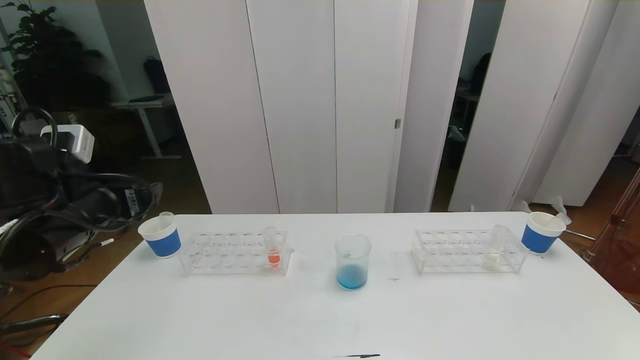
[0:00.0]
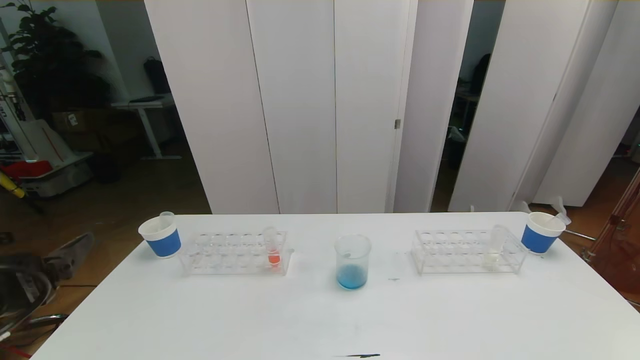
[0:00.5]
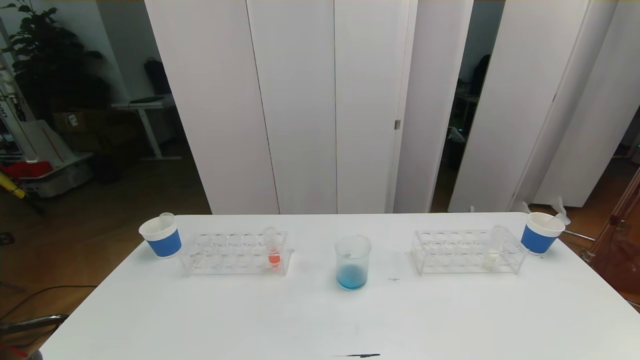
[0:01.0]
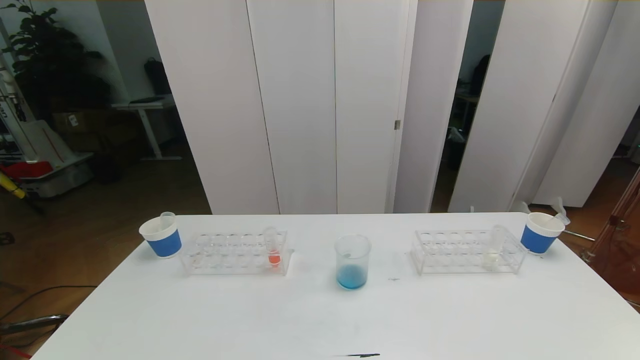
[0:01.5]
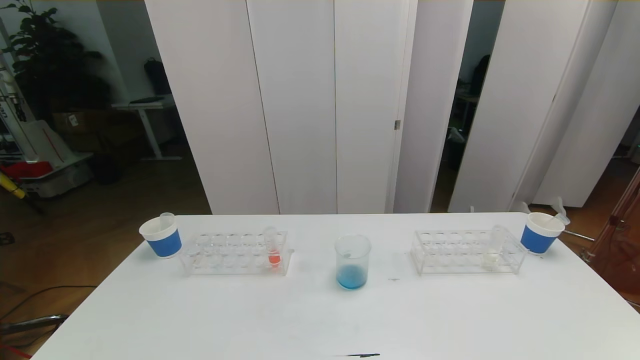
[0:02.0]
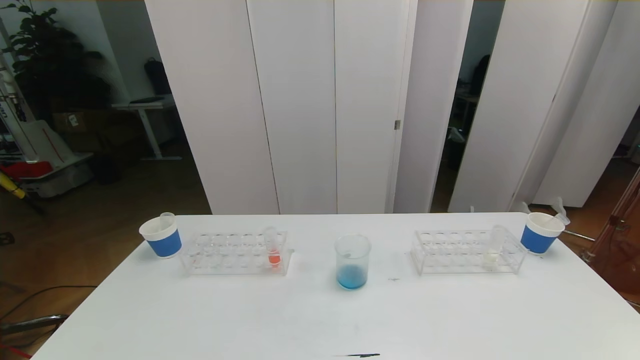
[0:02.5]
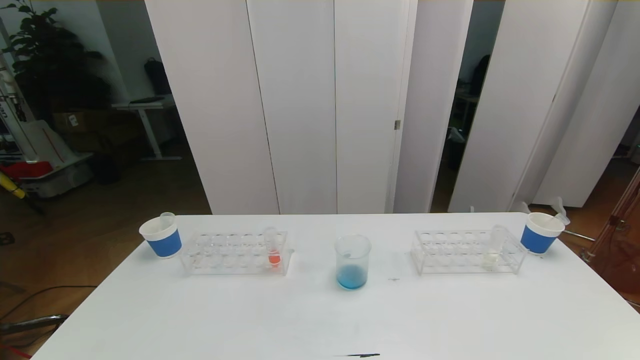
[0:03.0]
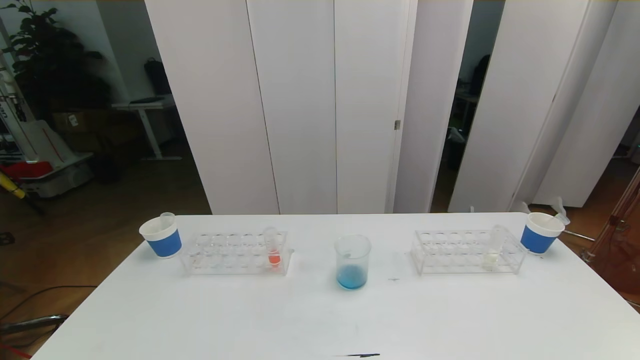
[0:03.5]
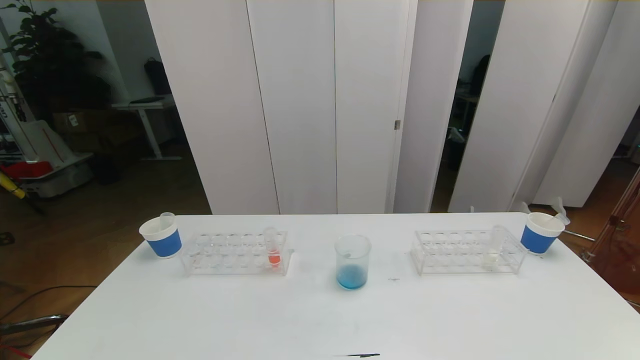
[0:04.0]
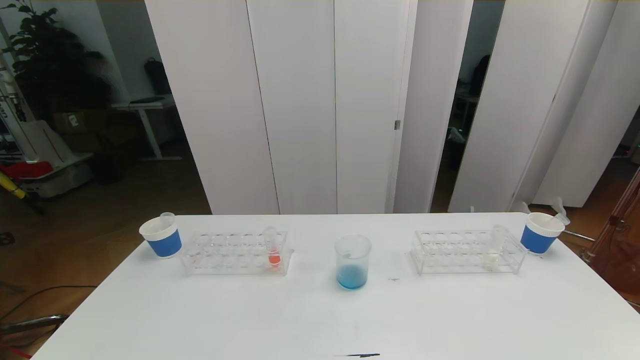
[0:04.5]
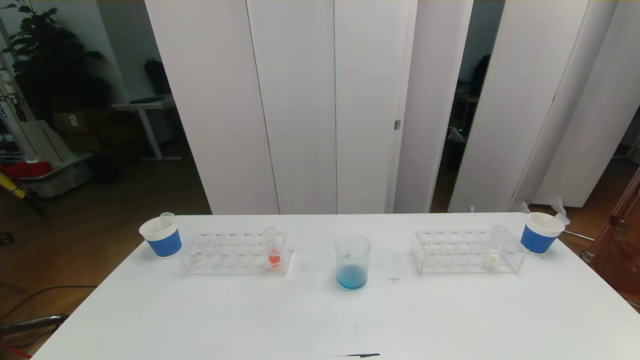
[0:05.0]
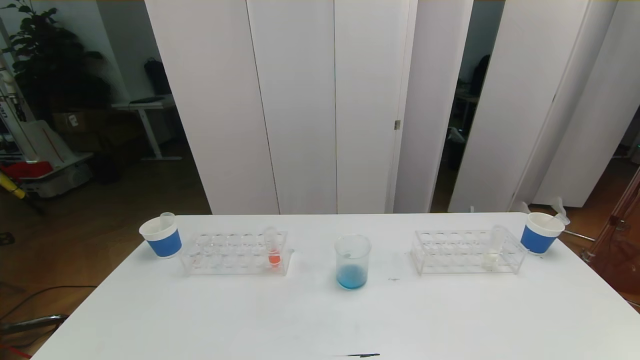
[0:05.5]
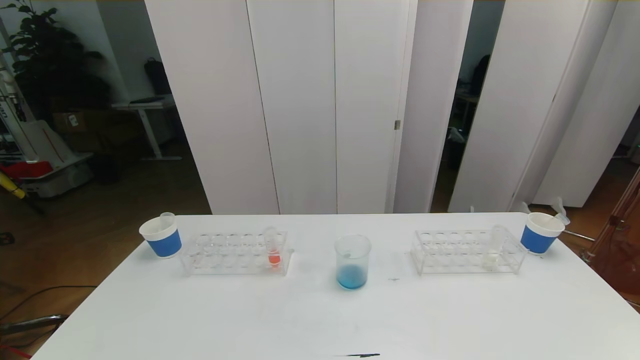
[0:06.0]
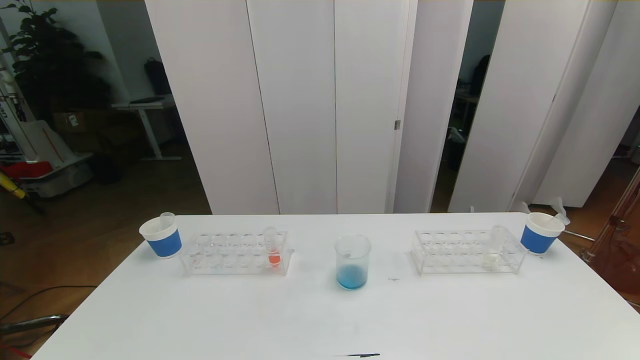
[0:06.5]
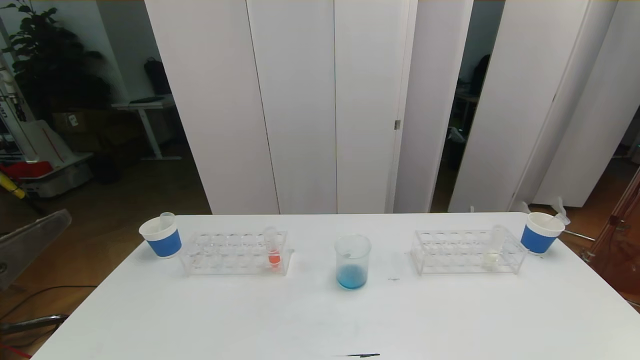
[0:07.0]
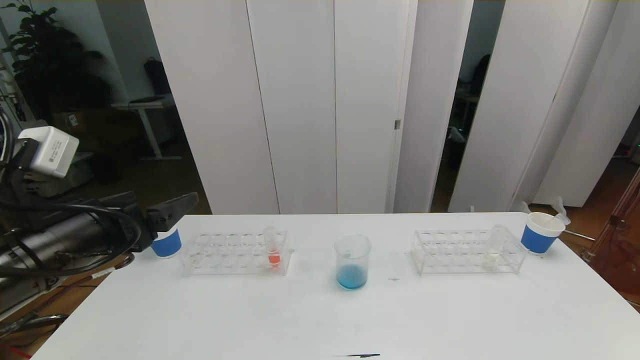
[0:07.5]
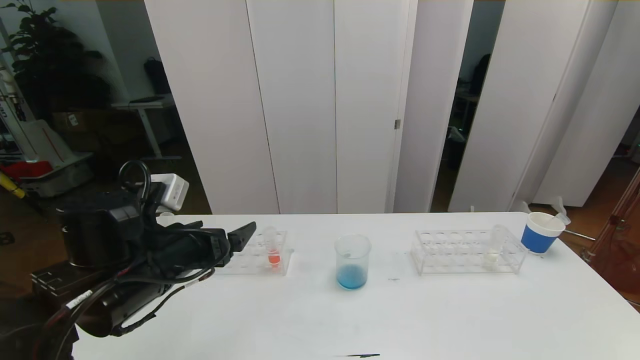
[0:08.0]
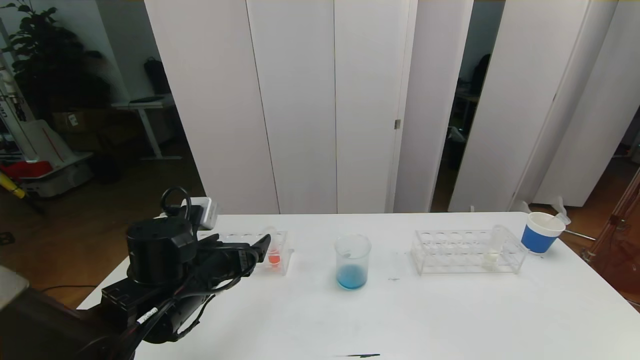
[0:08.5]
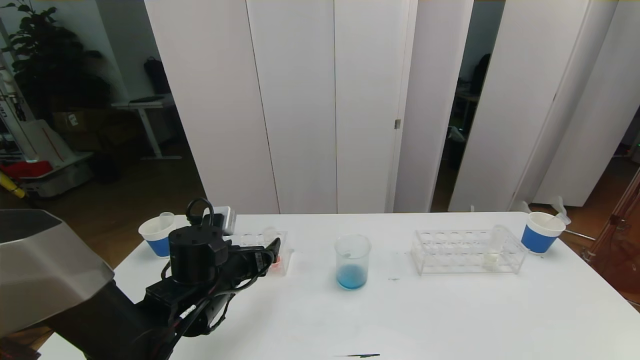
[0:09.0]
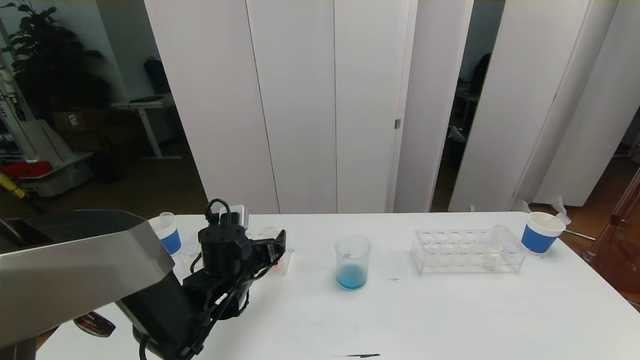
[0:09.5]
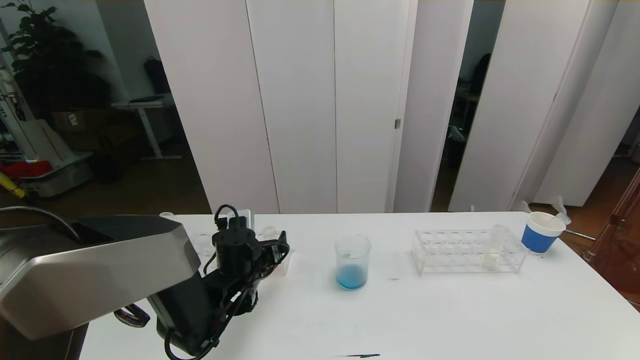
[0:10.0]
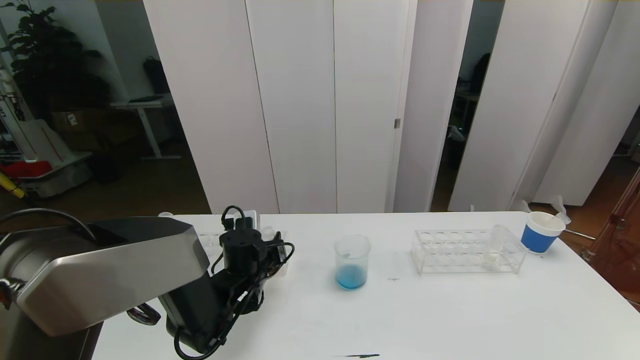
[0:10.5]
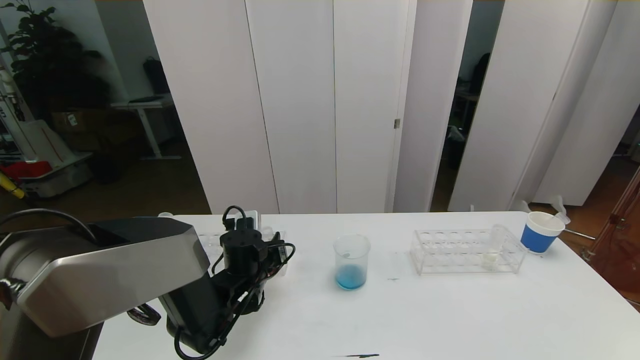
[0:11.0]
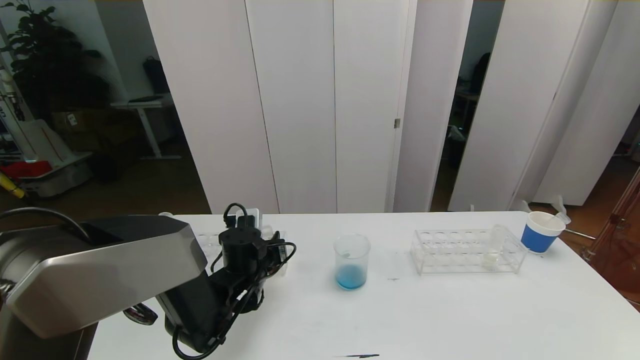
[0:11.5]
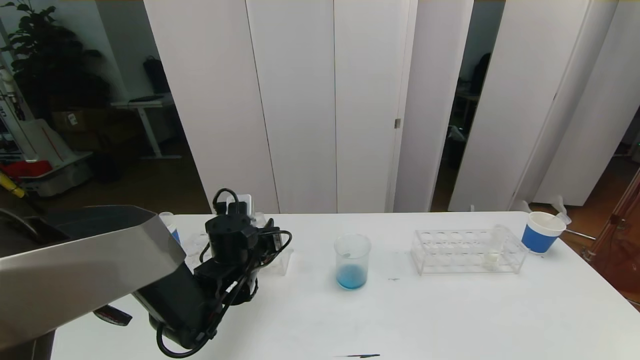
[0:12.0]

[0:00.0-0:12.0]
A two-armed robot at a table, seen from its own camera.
Task of the whole recording: pick up the test tube with red pigment the test tube with blue pigment and the test tube with white pigment by grippers and pour them into the beaker.
Step, 0:00.0 to 0:02.0: Pour the blue reagent into the graduated cylinder and place the test tube into the paper cup.
0:00.0 to 0:02.0: The left gripper goes about 30 cm backward and downward.
0:06.0 to 0:08.0: The left gripper is displaced forward by about 25 cm.
0:08.0 to 0:10.0: The left gripper goes some 15 cm downward and forward.
0:10.0 to 0:12.0: The left gripper closes.

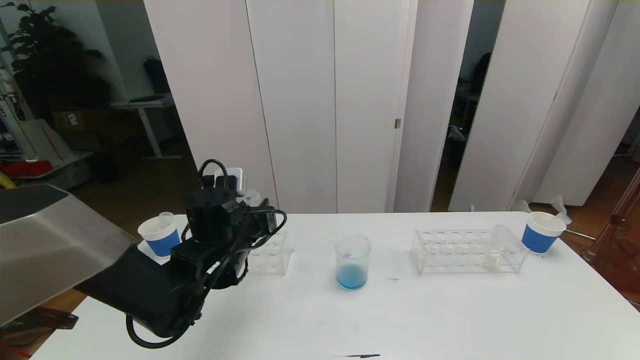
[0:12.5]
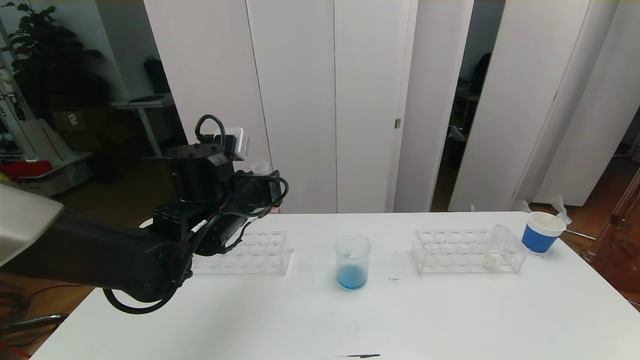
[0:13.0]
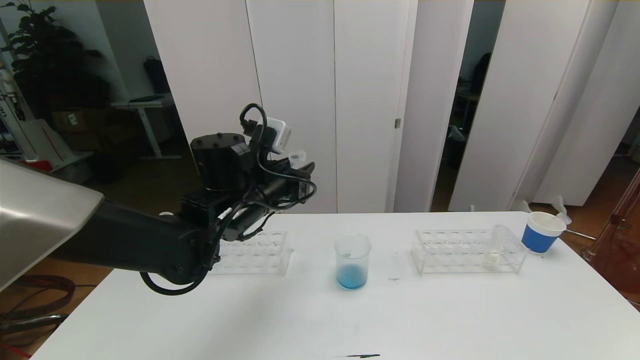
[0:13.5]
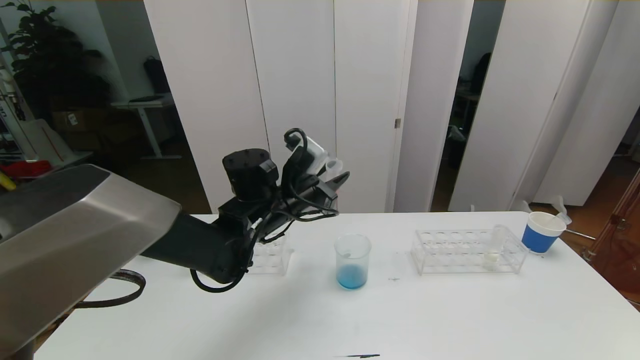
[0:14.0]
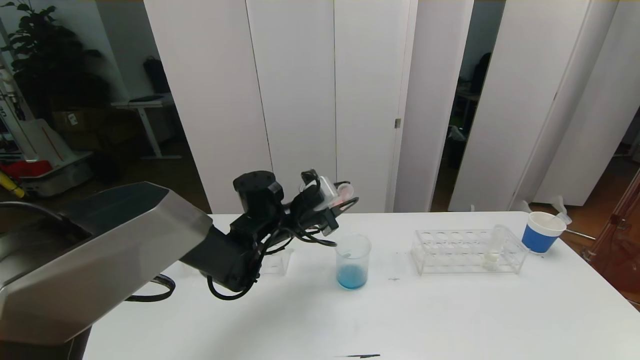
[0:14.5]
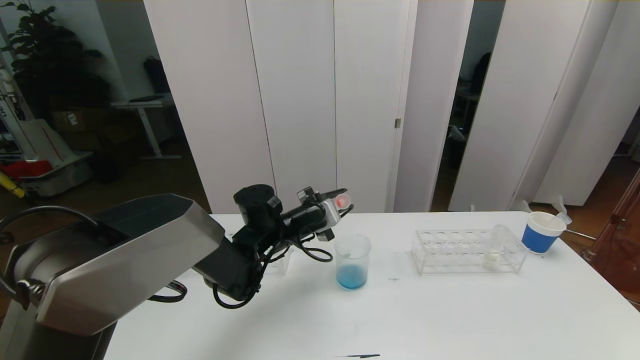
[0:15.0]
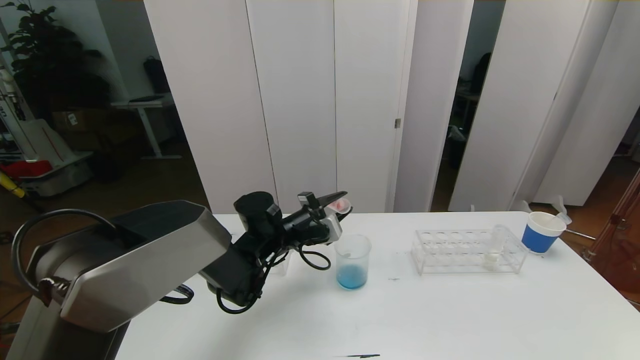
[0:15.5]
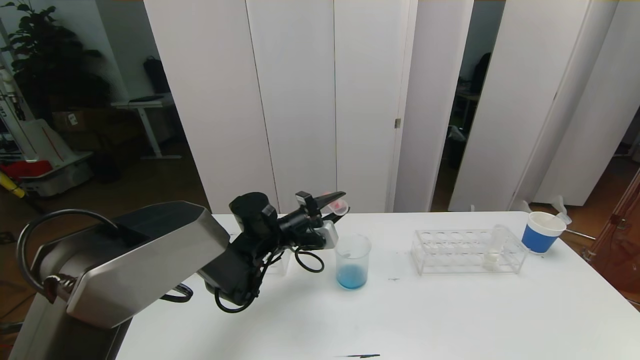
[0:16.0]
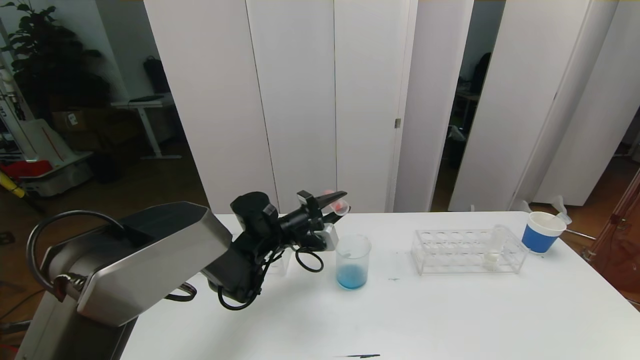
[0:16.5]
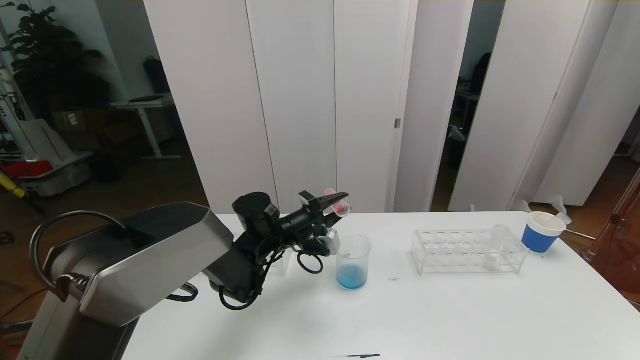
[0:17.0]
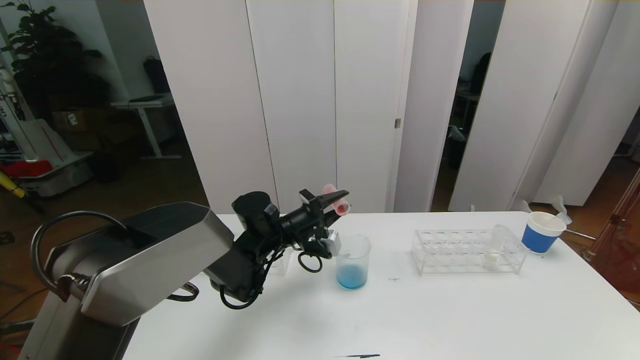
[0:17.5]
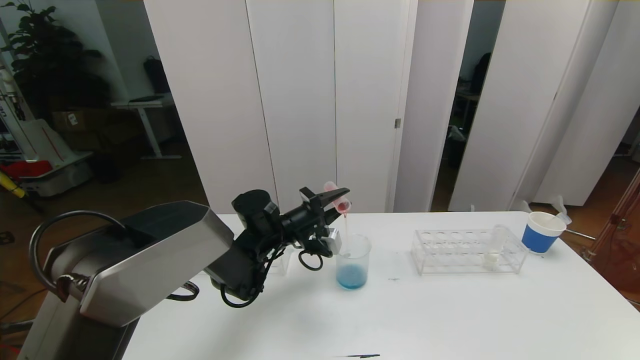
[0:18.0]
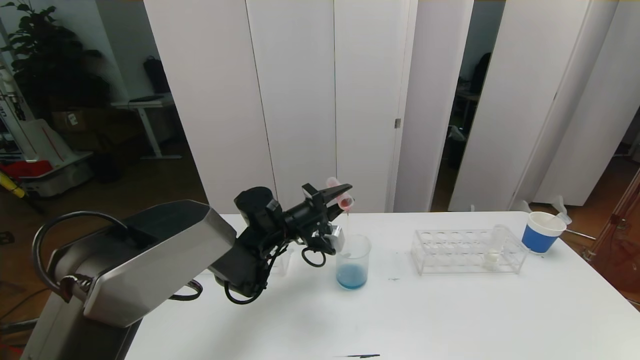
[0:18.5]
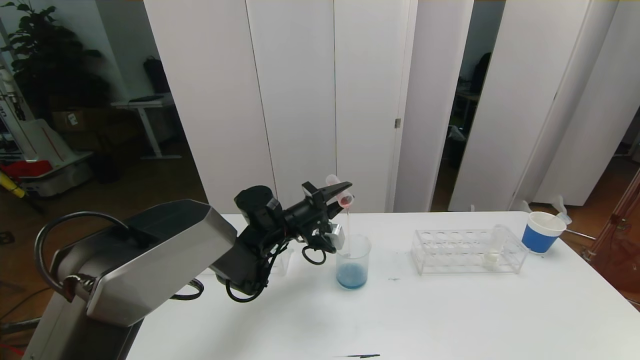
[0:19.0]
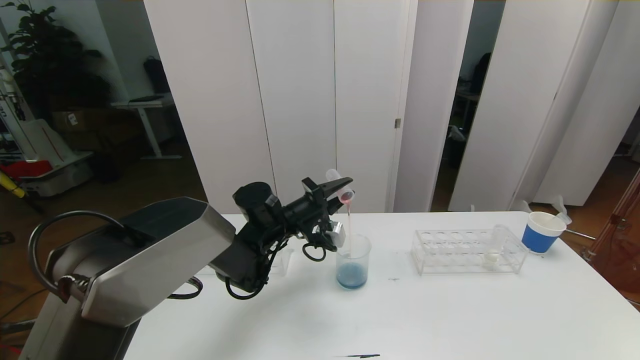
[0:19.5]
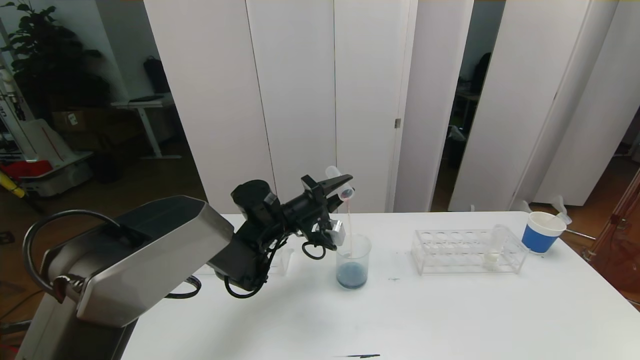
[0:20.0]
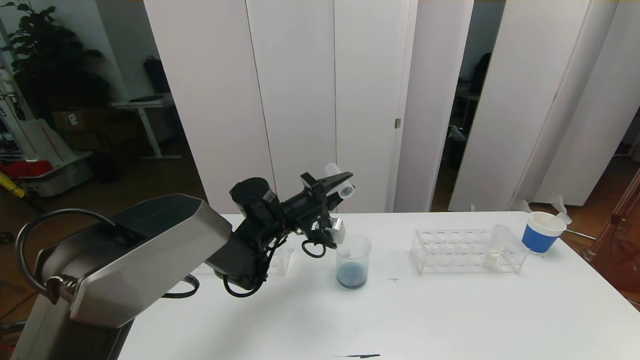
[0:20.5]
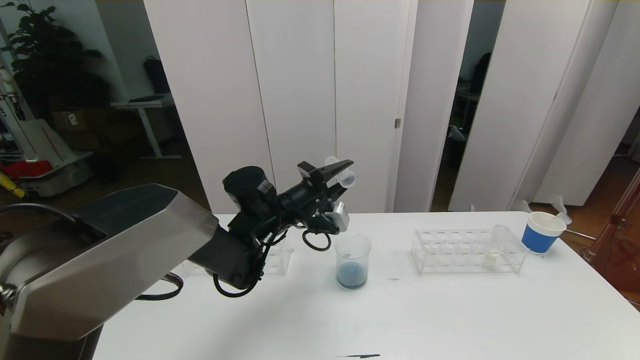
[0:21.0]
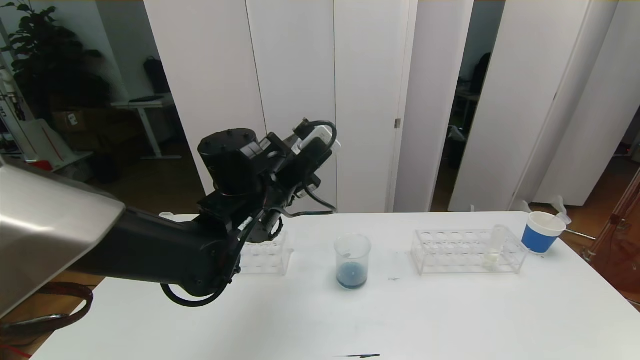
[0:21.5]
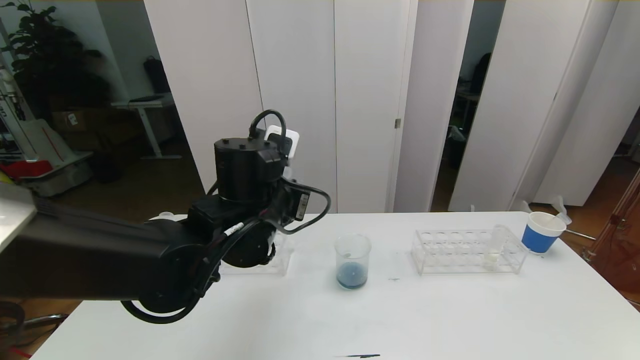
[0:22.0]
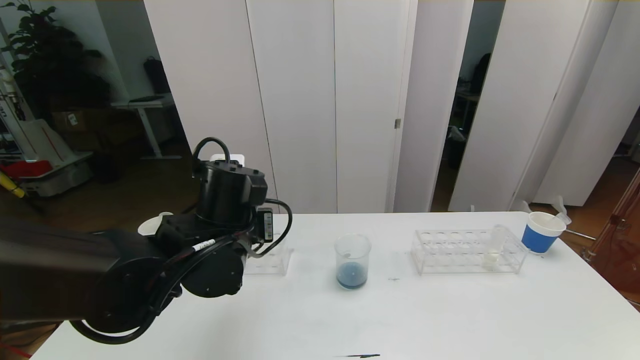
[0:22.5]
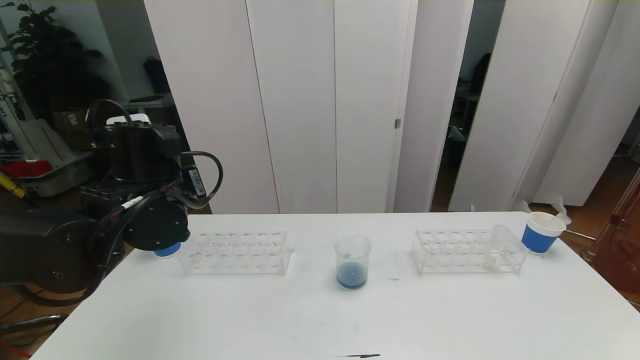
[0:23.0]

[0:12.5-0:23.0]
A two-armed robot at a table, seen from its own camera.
Task of the whole recording: pick up the test tube with red pigment the test tube with blue pigment and the test tube with white pigment by grippers and pour them into the beaker.
0:12.5 to 0:14.5: The left gripper moves to the right and forward, some 10 cm.
0:16.5 to 0:19.0: The grippers move only a little.
0:19.0 to 0:21.0: The left gripper travels upward by approximately 5 cm.
0:21.0 to 0:23.0: The left gripper moves to the left, backward and upward, some 15 cm.
